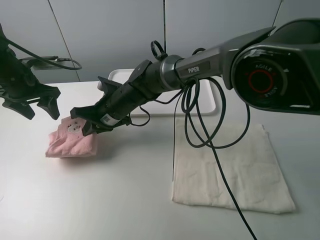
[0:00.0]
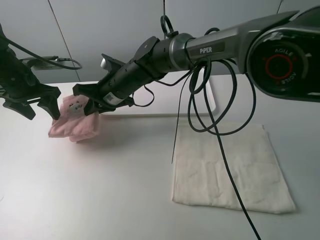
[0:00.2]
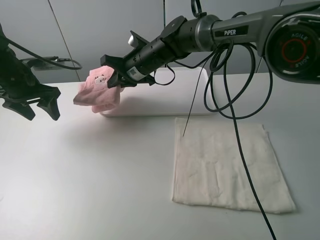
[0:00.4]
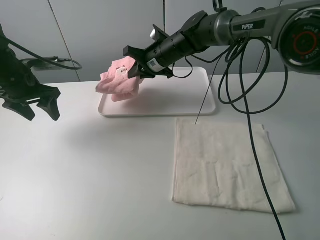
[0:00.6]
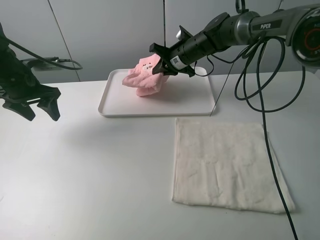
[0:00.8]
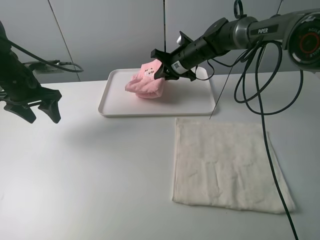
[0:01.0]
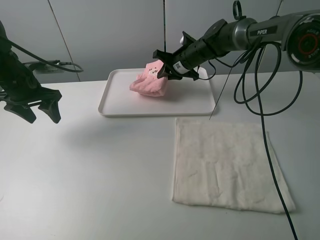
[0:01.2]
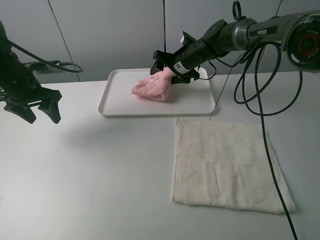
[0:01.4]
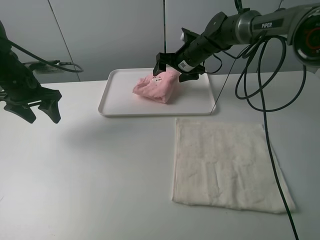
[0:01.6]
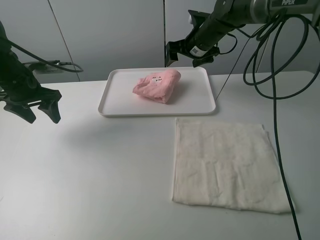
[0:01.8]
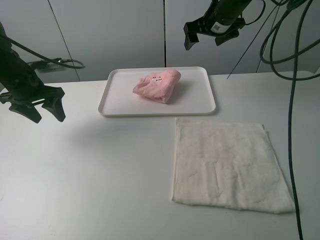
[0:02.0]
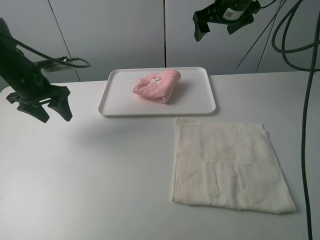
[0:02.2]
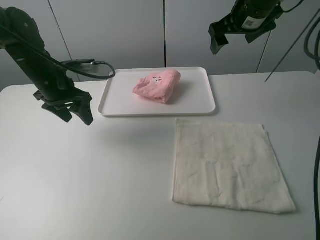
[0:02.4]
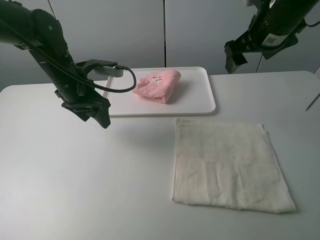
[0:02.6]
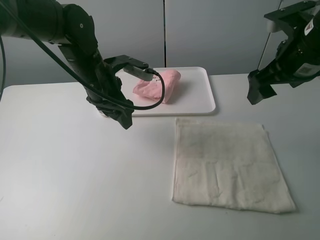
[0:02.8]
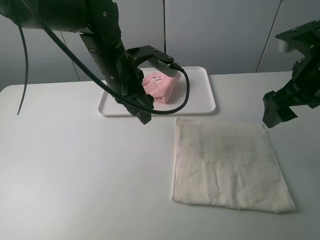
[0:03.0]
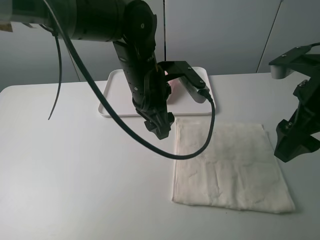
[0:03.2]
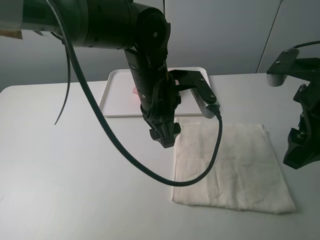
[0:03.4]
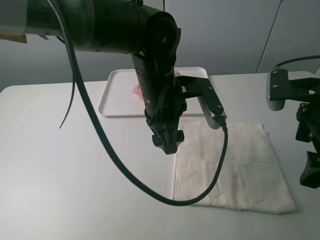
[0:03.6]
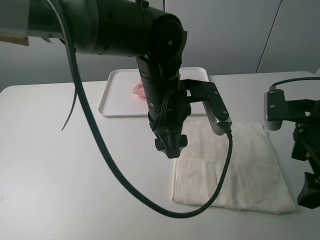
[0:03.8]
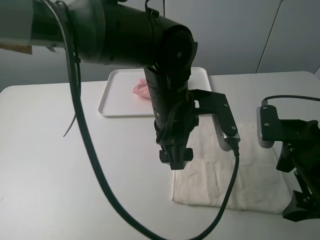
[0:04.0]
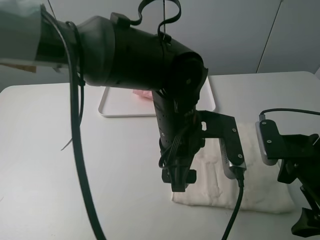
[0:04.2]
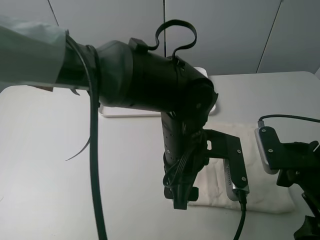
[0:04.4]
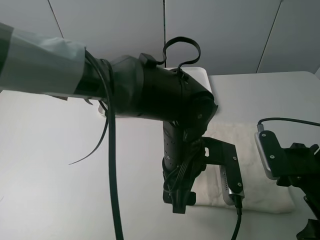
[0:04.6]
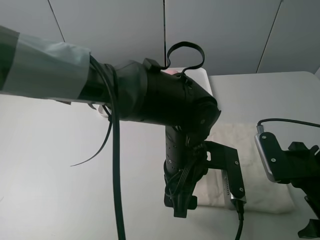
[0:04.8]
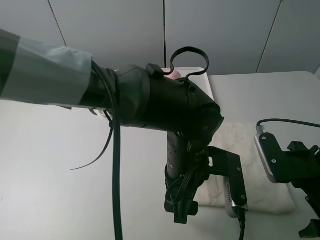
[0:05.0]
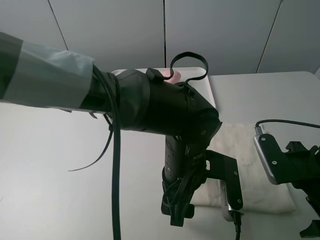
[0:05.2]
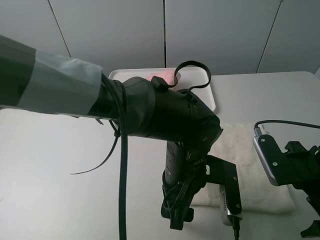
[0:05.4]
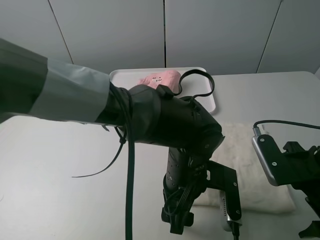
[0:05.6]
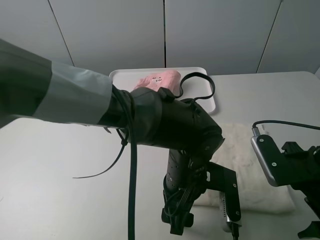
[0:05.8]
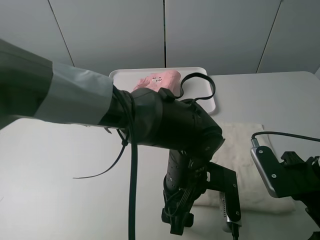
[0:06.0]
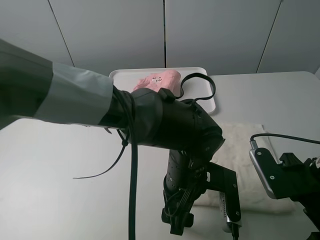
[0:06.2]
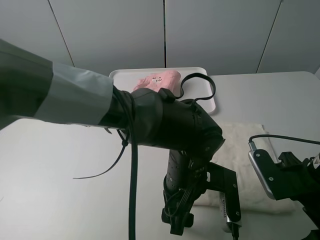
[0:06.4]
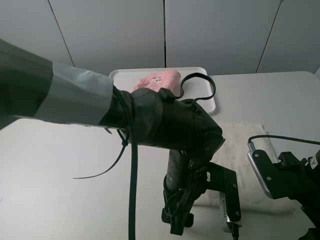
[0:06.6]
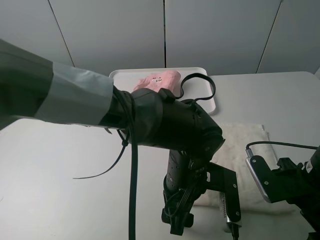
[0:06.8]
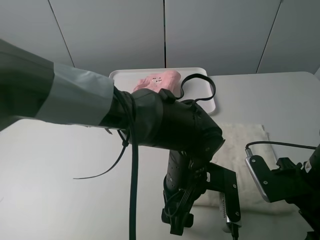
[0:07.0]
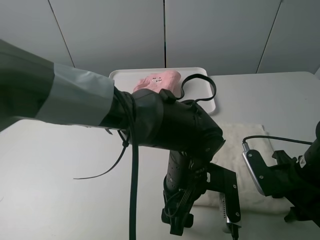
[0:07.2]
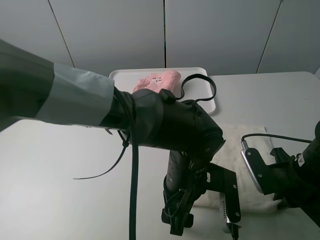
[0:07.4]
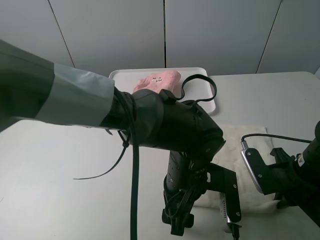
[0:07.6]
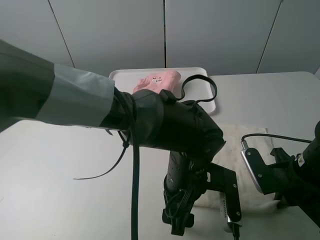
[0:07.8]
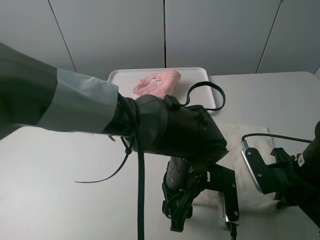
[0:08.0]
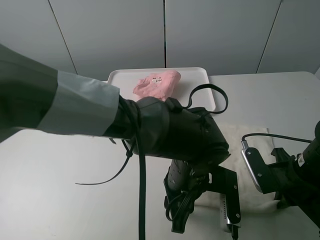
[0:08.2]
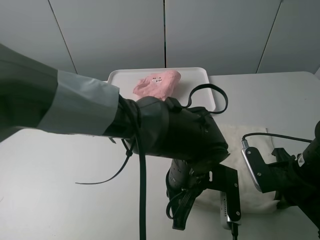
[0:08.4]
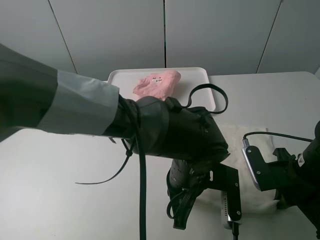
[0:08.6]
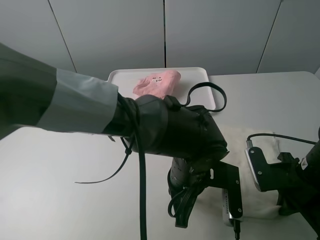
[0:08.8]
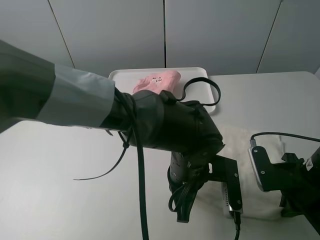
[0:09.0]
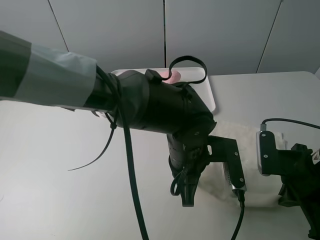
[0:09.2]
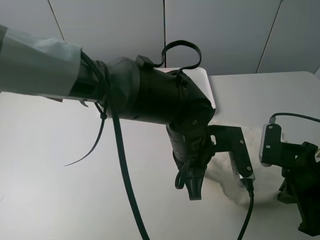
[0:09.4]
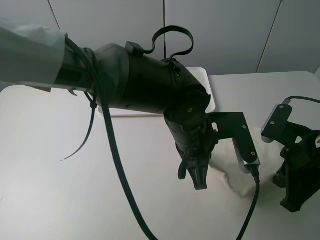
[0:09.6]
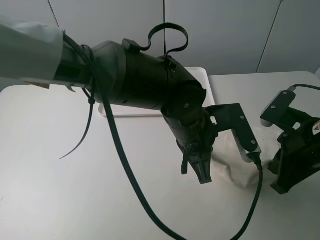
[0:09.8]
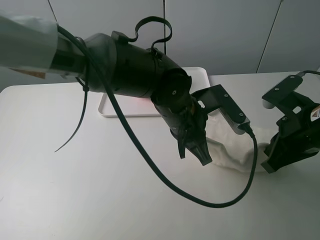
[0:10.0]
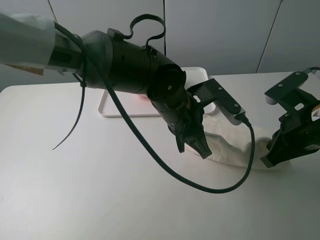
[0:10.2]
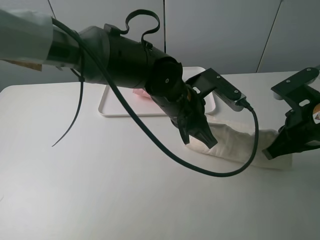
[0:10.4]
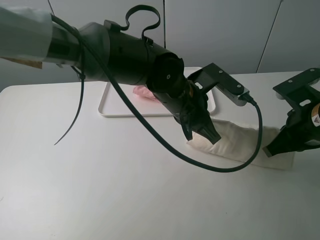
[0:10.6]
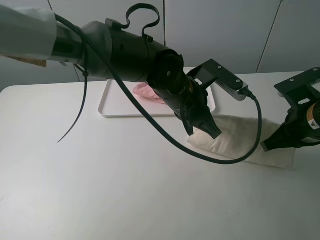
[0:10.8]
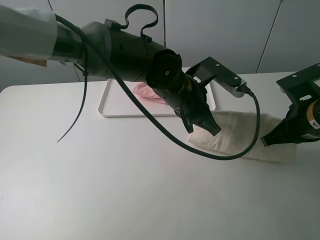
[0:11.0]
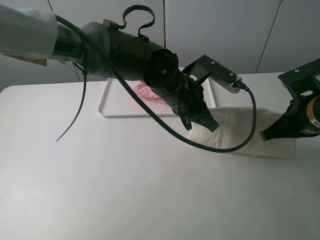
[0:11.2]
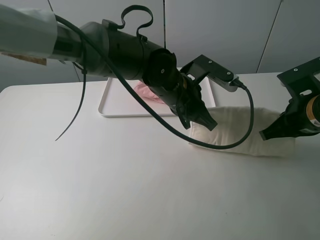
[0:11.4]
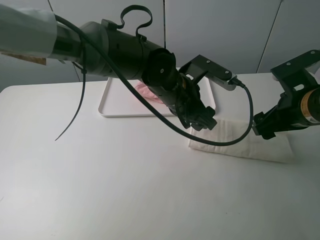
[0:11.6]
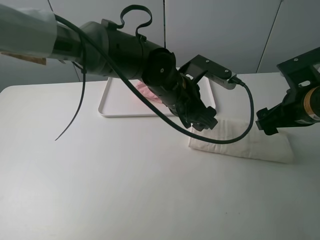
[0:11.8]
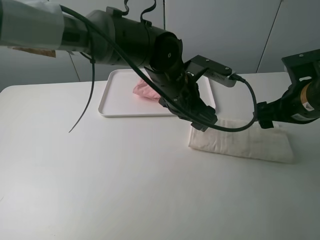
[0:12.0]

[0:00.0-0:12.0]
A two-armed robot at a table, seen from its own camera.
Task of the whole recording: fold one of the towels by two grippers and place it on the tray,then fold another towel by two grippers and place it on the folded towel.
Step, 0.0 to 1.8 s: Move the pink towel to the plate with the right gripper.
Step, 2.0 to 8.4 s: Grasp the white towel with the left gripper.
Step, 8.6 to 11.6 s: Fold the white towel upwards with the left gripper.
0.0 to 1.6 s: The right gripper moves to the right and forward, about 25 cm, and opens.
1.6 to 3.0 s: The left gripper goes about 25 cm to the right, while the right gripper travels backward, to the right and upward by about 30 cm.
3.0 to 4.4 s: The right gripper shifts some 15 cm downward and backward. The left gripper is displaced backward, to the right and downward by some 20 cm.
4.4 to 6.0 s: The left gripper ends up roughly 5 cm from where it was.
6.0 to 7.6 s: The right gripper closes.
7.6 to 9.0 s: The left gripper closes up.
9.0 to 10.4 s: The right gripper shifts about 10 cm upward and forward, while the left gripper shifts approximately 10 cm forward and upward.
10.4 to 12.0 s: The left gripper opens its fingers, while the right gripper opens up.

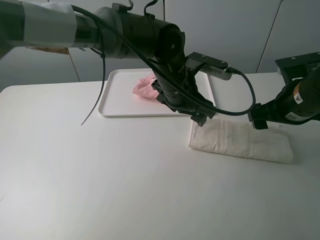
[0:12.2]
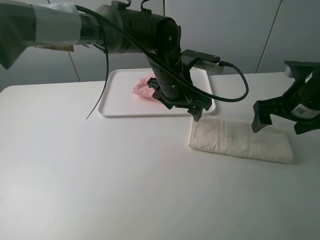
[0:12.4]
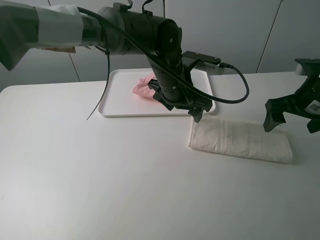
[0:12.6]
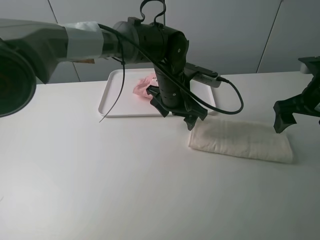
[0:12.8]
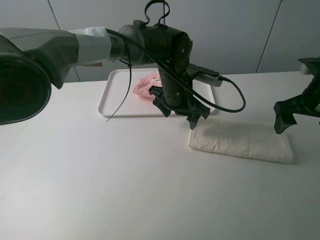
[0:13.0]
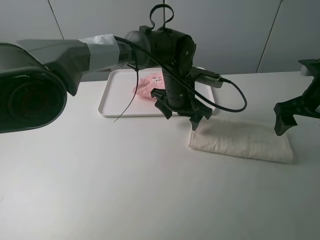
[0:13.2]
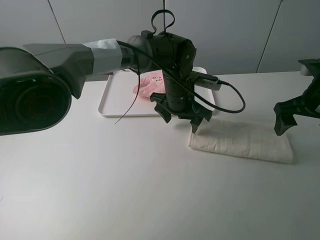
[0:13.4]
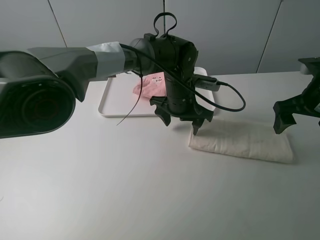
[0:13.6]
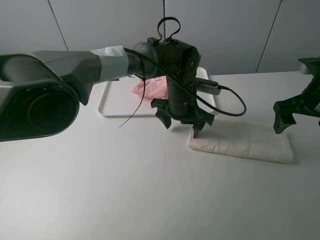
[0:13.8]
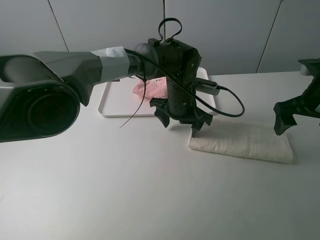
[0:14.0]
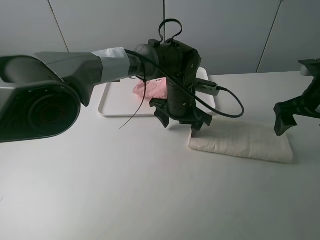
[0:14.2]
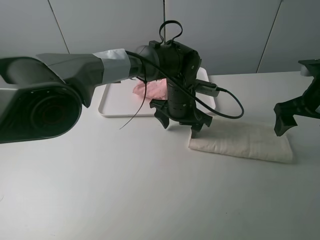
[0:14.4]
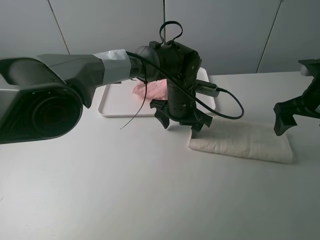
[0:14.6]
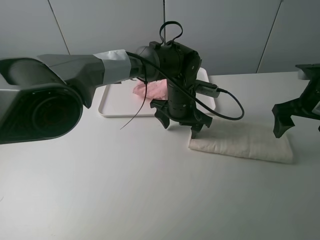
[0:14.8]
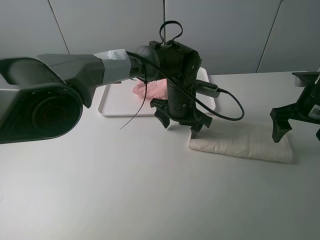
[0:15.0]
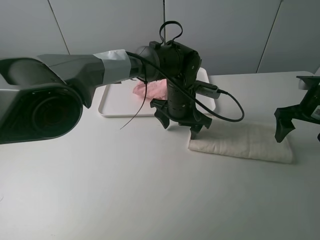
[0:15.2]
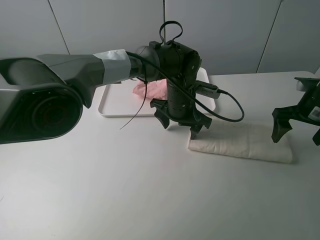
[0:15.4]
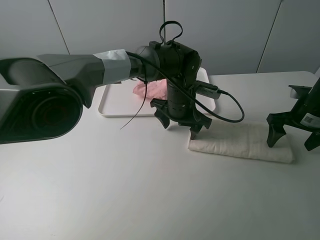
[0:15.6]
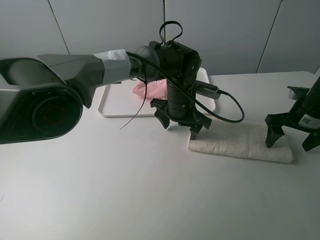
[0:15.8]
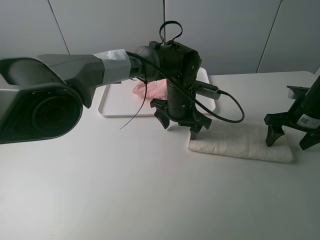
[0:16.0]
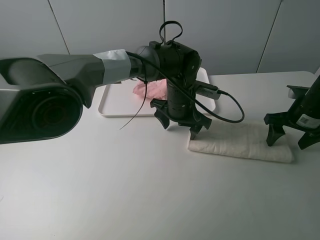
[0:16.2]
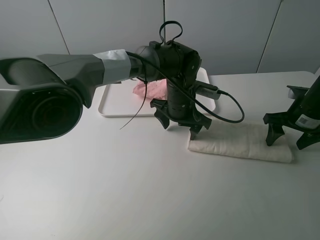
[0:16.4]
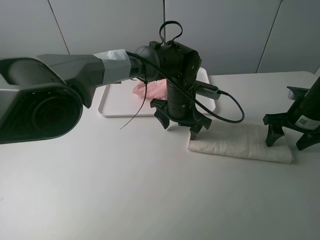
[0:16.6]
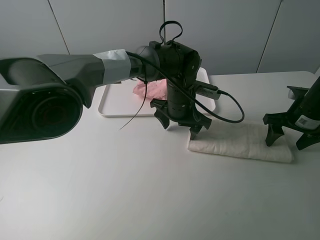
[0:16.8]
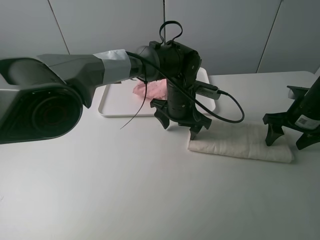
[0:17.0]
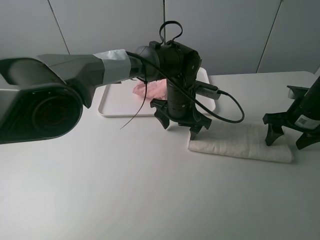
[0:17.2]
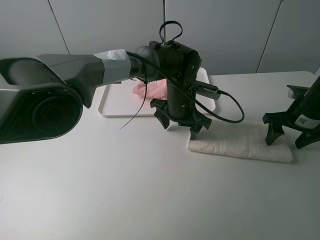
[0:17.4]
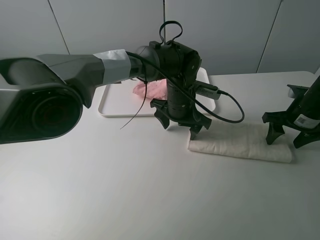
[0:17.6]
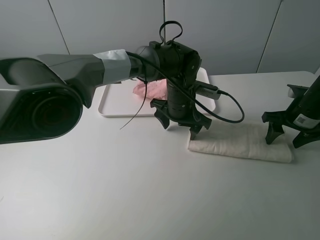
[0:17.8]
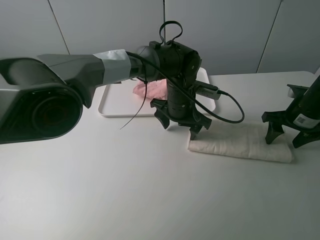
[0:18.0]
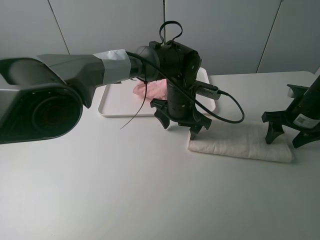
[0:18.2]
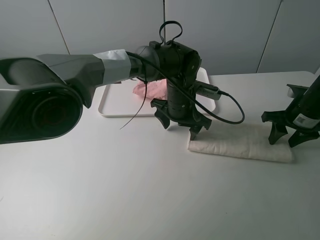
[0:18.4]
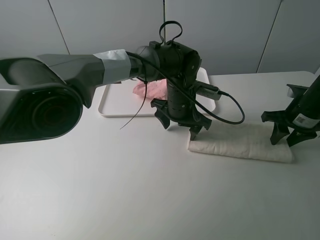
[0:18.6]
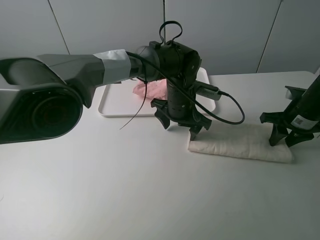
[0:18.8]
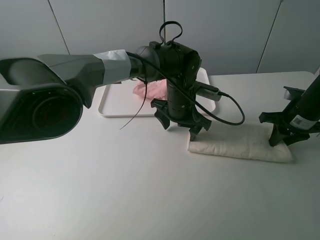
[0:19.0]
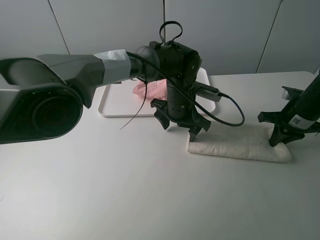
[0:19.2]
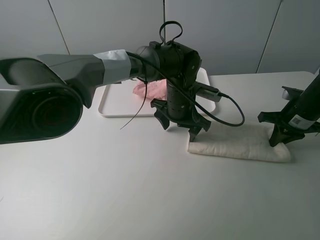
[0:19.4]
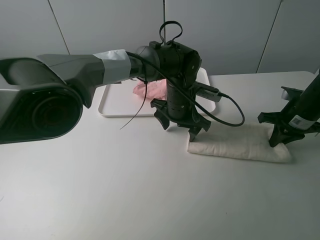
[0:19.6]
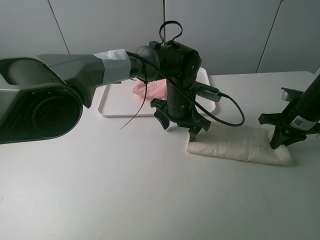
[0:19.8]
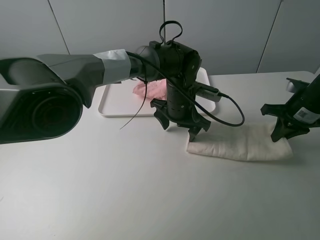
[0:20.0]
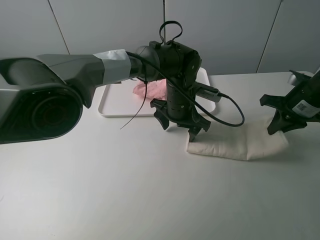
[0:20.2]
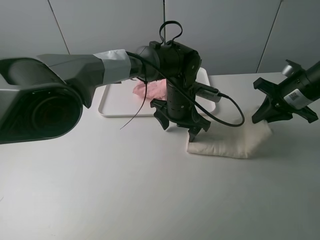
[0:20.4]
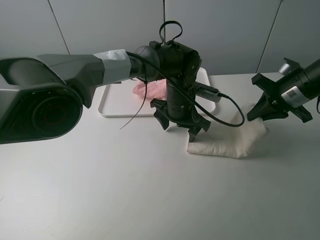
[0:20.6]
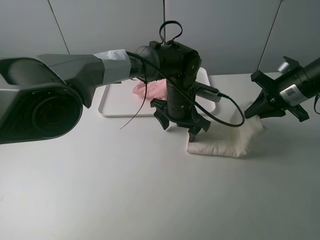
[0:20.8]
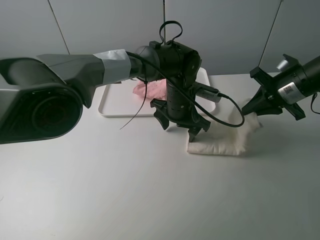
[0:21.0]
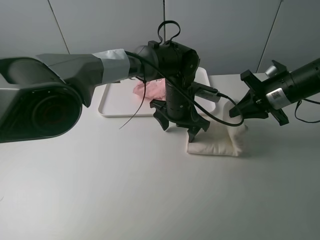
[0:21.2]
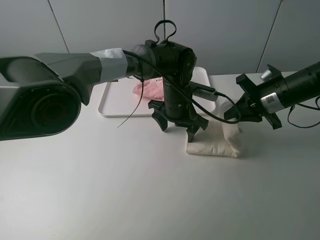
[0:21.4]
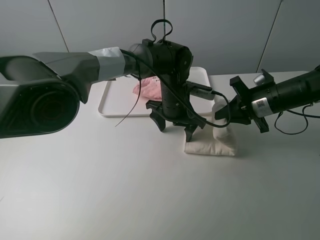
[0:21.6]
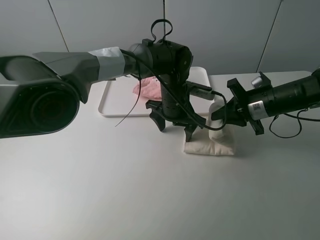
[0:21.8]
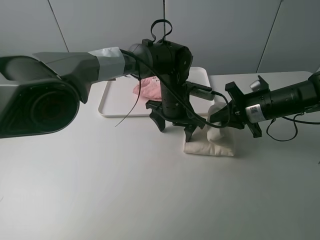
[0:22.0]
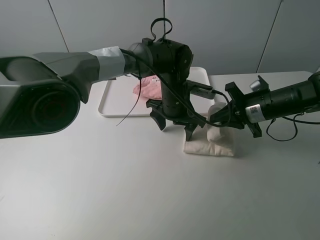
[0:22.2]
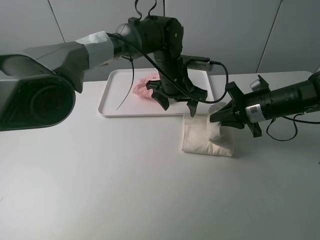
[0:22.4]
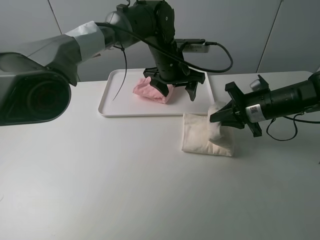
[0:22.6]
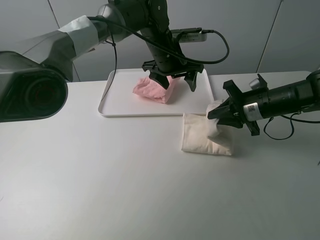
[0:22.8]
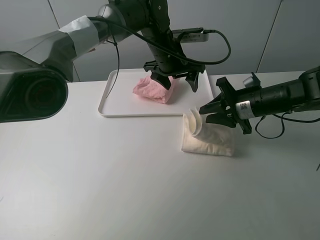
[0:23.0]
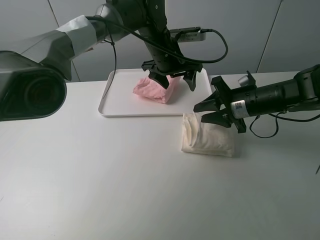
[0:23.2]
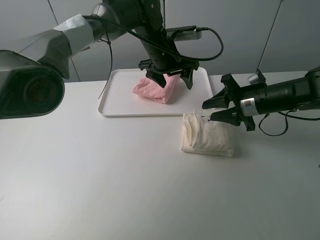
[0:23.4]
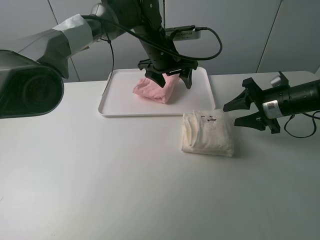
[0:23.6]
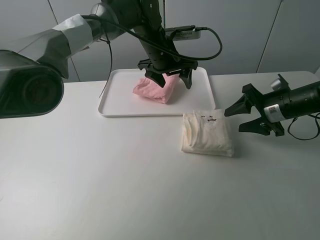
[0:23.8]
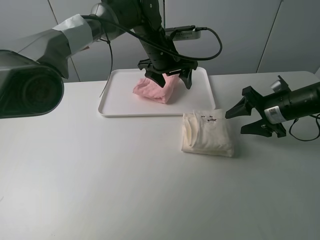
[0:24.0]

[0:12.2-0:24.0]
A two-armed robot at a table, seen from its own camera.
Task of the whole recording: fold one of the towels by two grippers and place it on the tray,then fold another towel by two grippers and place it on the folded towel.
Step, 12.2 to 14.6 s: Press the white towel with the left gripper.
Step, 14.8 to 19.2 s: Grasp the white towel with the right gripper.
Step, 19.4 to 23.2 s: Fold the white towel from right to left with right gripper.
12.2 to 13.6 s: The left gripper heads downward, covering approximately 5 cm; the right gripper shifts approximately 5 cm to the right.
13.6 to 15.2 s: The right gripper shifts by approximately 5 cm.
15.2 to 16.6 s: There are only small adjustments of the grippers.
16.6 to 18.2 s: Neither gripper changes place.
18.2 to 19.6 s: The right gripper closes its fingers.
19.6 to 21.0 s: The right gripper moves upward, some 5 cm.
21.0 to 22.6 s: The left gripper shifts roughly 10 cm upward and forward; the right gripper heads downward, covering some 5 cm.
22.6 to 24.0 s: The right gripper opens.
